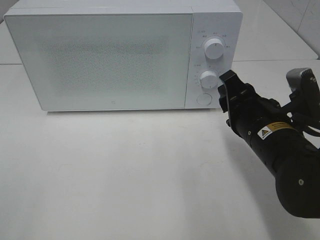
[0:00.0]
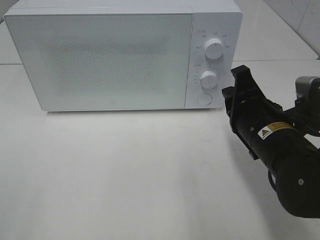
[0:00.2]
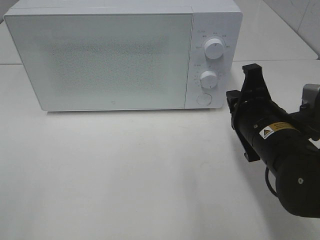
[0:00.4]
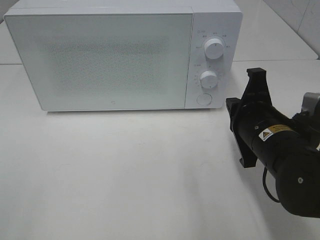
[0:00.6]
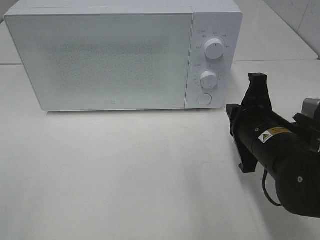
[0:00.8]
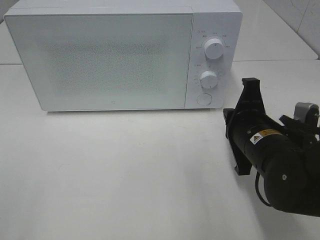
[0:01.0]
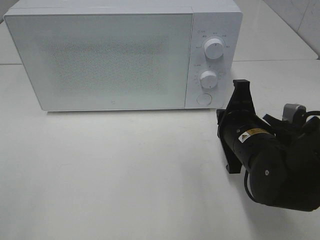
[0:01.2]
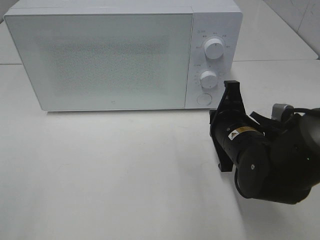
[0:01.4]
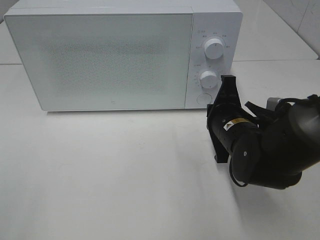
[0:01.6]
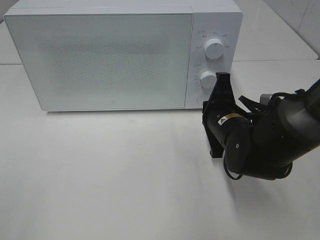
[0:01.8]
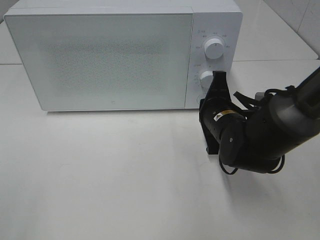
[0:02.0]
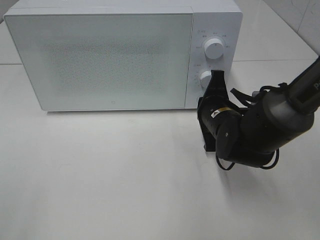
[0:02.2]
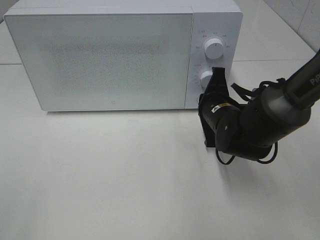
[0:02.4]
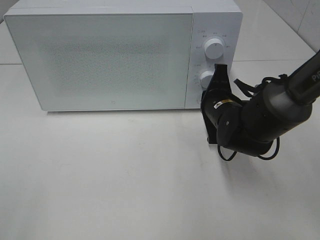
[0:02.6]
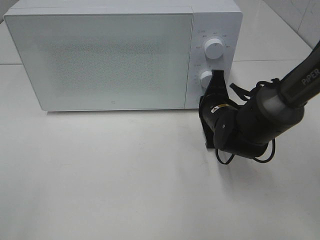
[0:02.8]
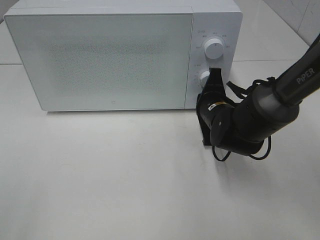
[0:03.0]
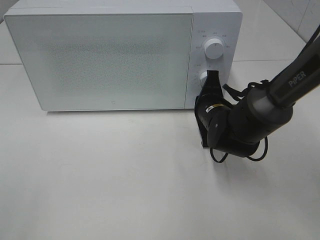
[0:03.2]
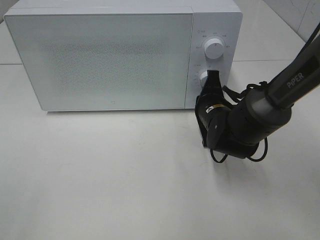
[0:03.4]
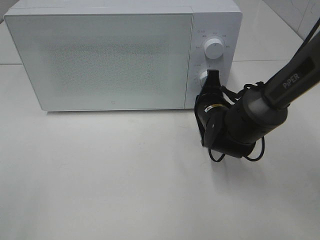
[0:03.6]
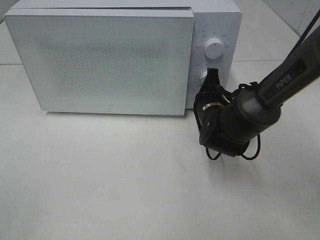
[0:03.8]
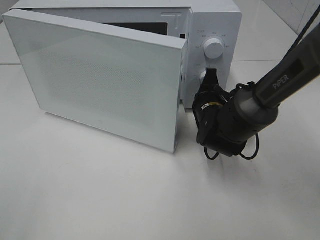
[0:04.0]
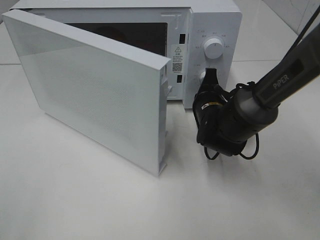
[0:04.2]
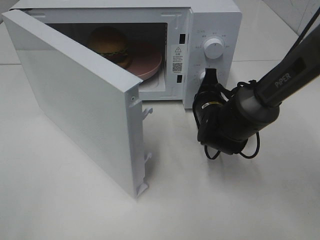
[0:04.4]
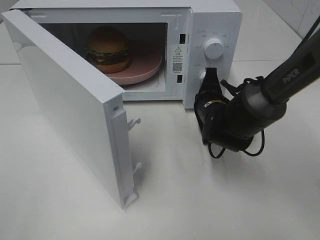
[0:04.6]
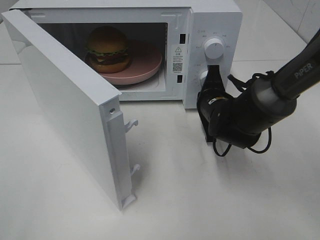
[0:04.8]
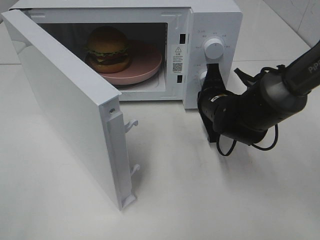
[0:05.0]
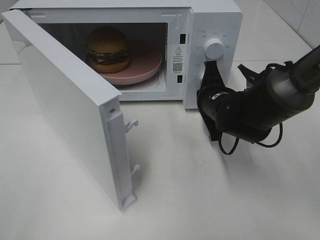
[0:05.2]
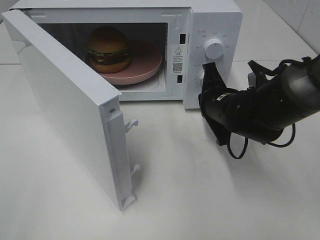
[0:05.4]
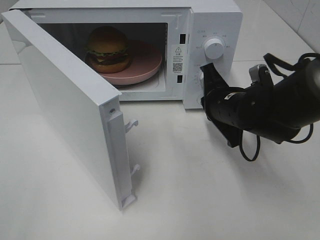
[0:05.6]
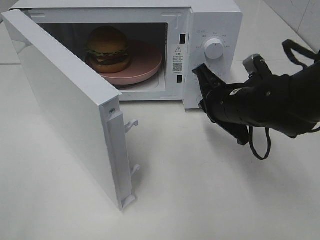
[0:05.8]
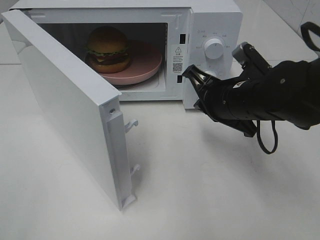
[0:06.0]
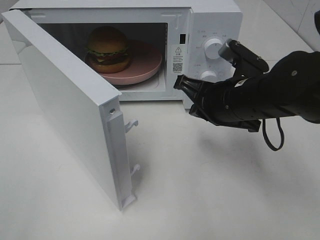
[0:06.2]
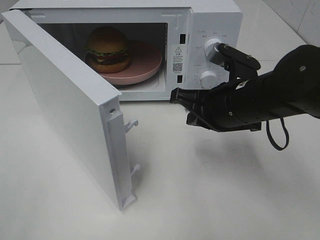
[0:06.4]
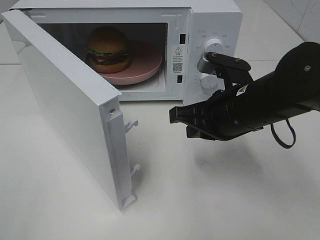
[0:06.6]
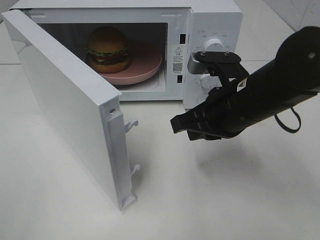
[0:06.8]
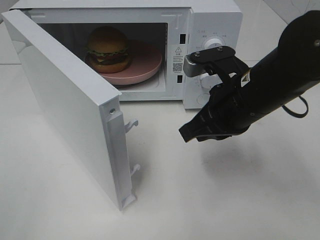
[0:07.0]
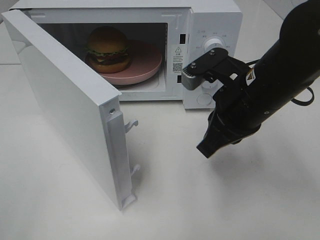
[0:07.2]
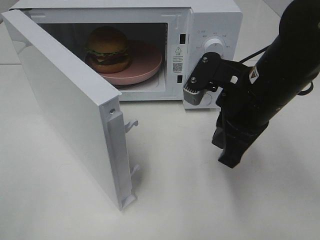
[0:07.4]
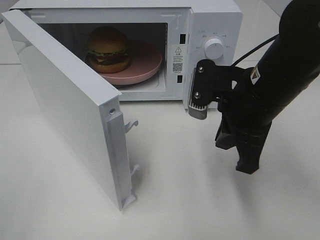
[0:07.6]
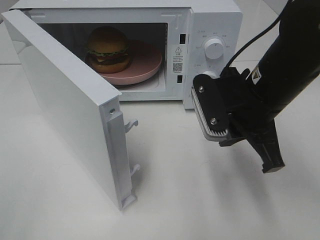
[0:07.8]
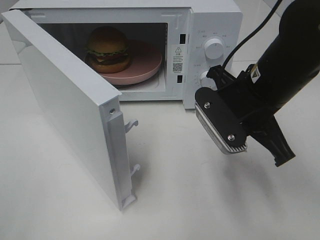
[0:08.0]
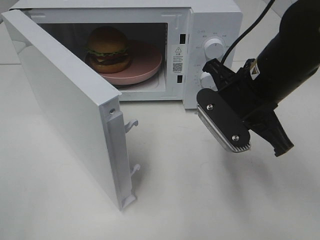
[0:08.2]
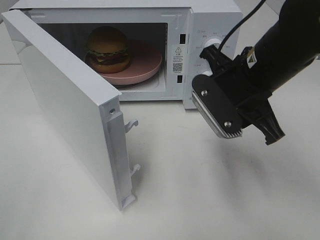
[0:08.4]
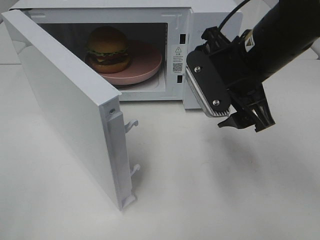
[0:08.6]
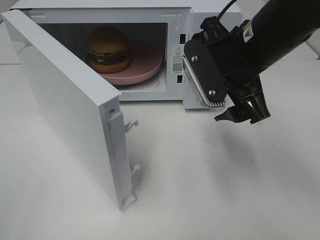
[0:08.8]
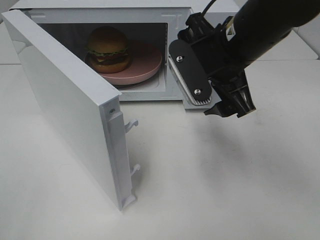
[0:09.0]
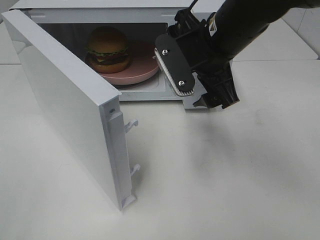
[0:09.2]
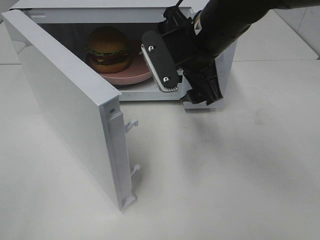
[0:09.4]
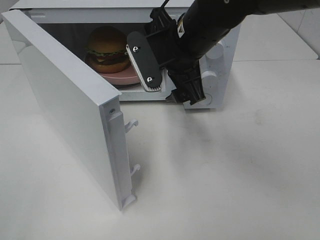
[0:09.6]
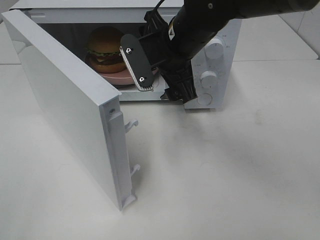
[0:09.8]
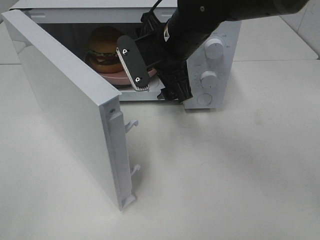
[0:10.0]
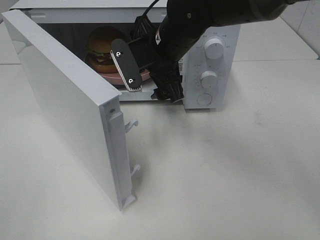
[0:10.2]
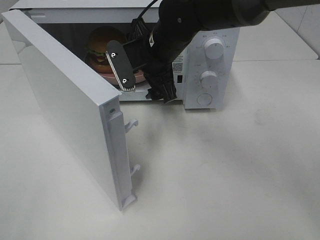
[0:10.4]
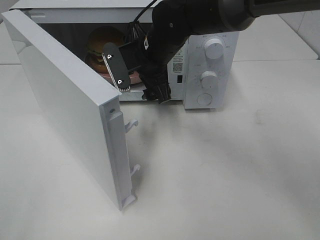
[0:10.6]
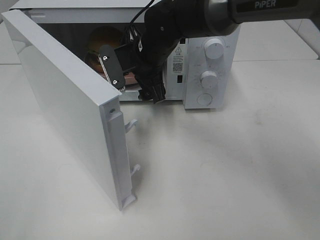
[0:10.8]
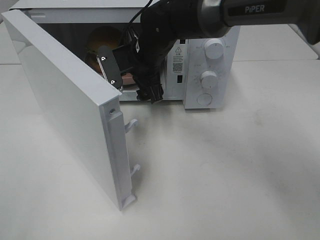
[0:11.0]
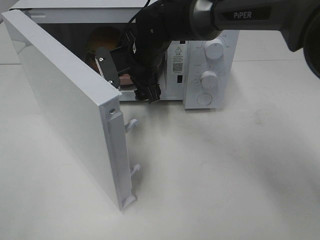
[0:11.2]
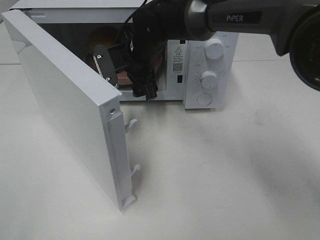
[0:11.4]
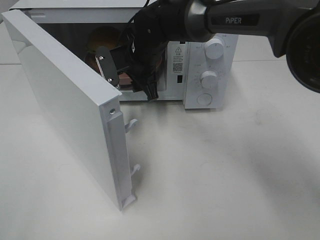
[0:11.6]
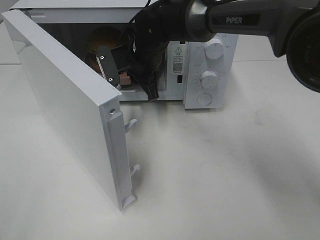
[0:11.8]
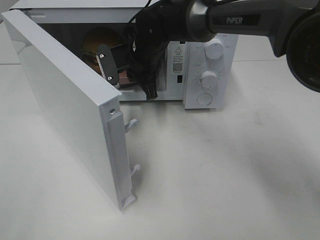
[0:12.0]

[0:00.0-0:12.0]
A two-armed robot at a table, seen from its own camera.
Task of the whole recording: Heat the burger.
Step, 0:00.0 to 0:05.4: Right hand: press the switch.
Step, 0:05.6 to 0:11.8: Right hand: grab the plate with the hamburger.
0:00.0 to 0:01.6: The right gripper ends up roughly 5 cm from where it was, and closes.
0:01.6 to 0:03.0: The right gripper heads forward, covering roughly 5 cm.
0:04.4 to 0:06.0: The right gripper shifts roughly 10 cm upward and backward.
0:06.0 to 0:07.6: The right gripper changes place by roughly 5 cm.
0:07.6 to 0:09.0: The right gripper moves approximately 5 cm, and opens up.
0:09.0 to 0:10.4: The right gripper heads to the left, forward and downward, covering roughly 15 cm.
0:10.4 to 0:12.0: The right gripper goes roughly 5 cm forward, and closes.

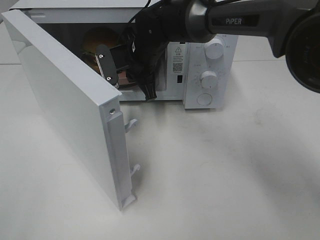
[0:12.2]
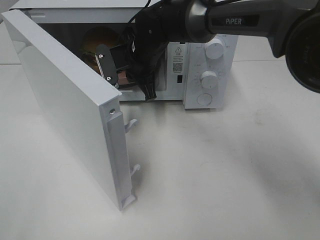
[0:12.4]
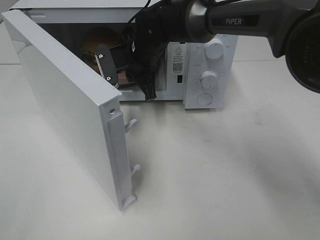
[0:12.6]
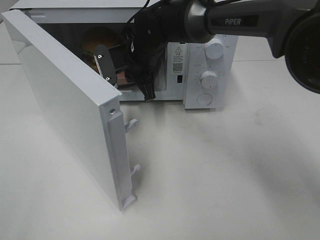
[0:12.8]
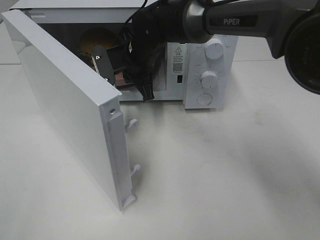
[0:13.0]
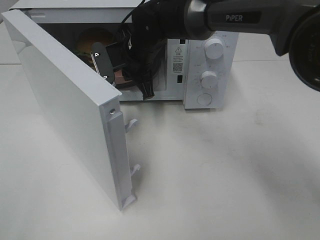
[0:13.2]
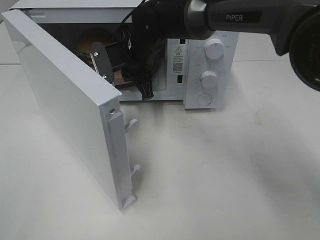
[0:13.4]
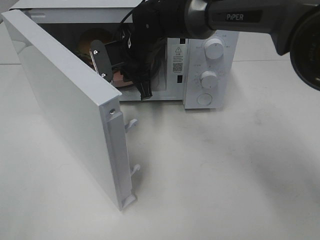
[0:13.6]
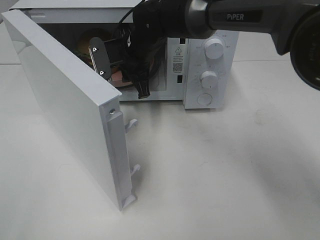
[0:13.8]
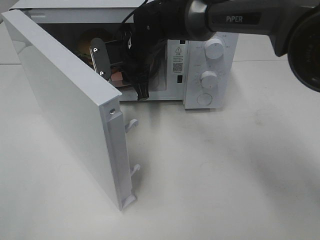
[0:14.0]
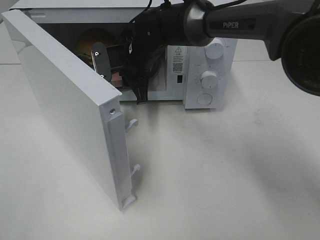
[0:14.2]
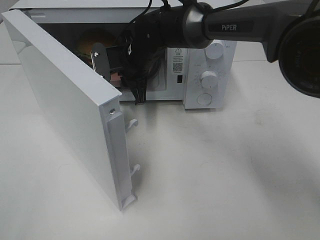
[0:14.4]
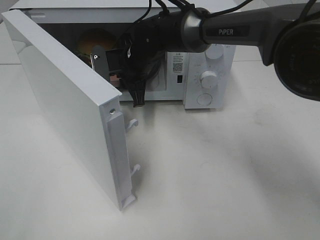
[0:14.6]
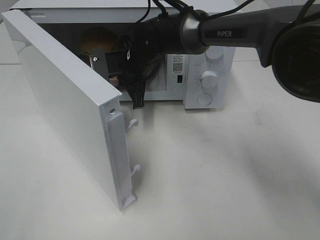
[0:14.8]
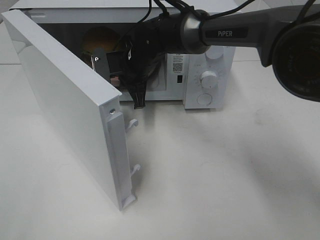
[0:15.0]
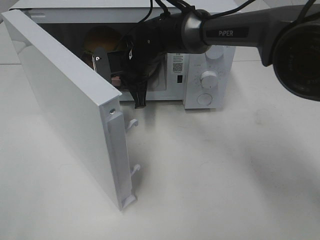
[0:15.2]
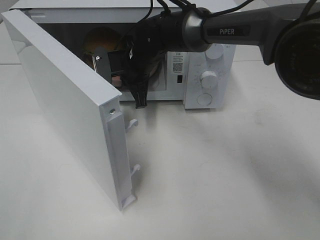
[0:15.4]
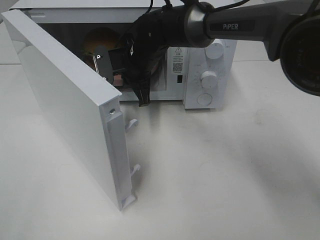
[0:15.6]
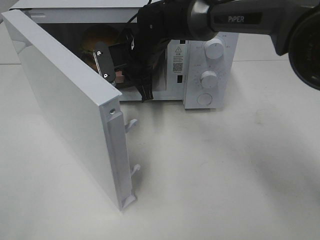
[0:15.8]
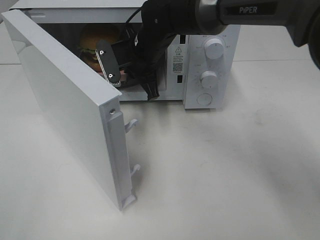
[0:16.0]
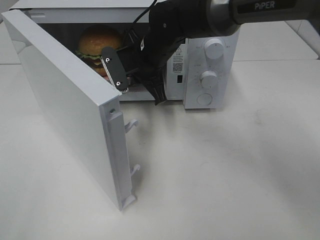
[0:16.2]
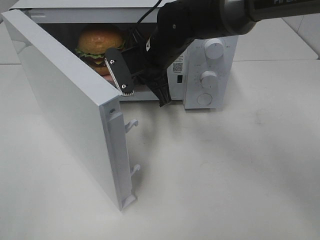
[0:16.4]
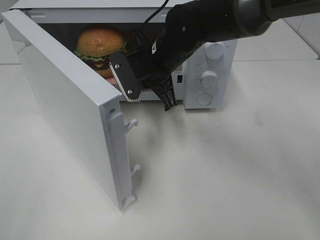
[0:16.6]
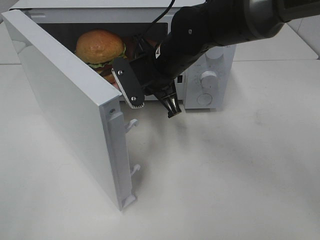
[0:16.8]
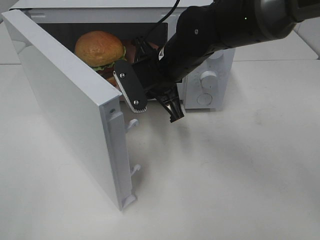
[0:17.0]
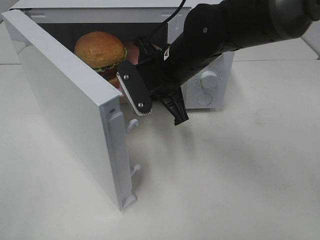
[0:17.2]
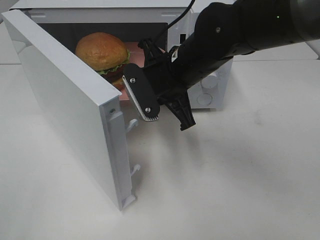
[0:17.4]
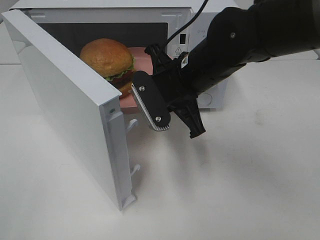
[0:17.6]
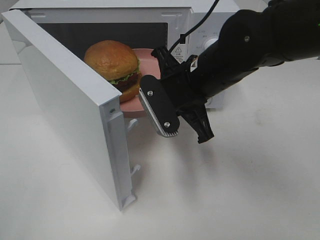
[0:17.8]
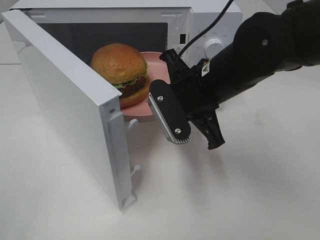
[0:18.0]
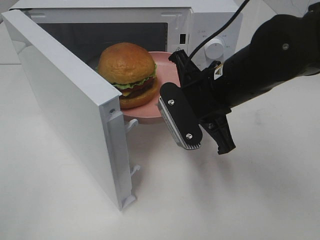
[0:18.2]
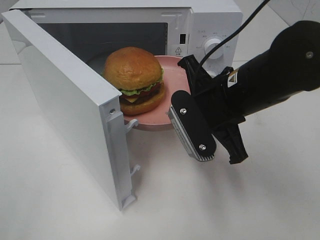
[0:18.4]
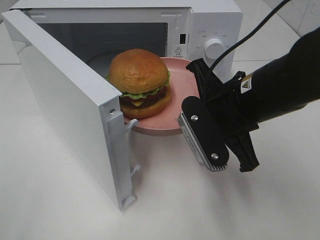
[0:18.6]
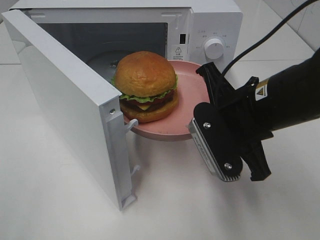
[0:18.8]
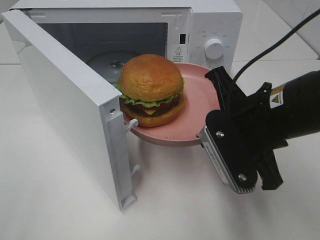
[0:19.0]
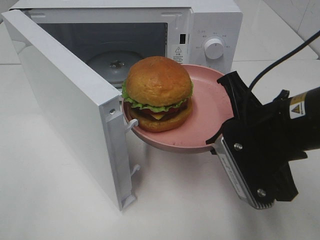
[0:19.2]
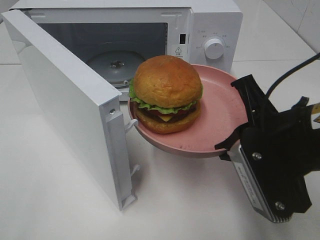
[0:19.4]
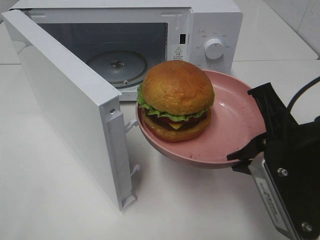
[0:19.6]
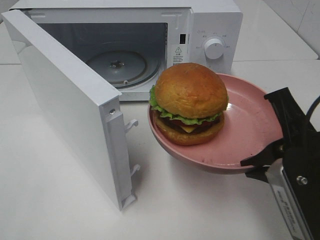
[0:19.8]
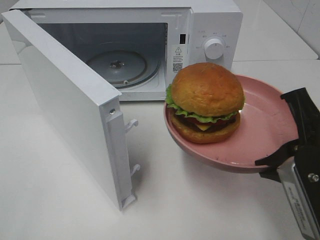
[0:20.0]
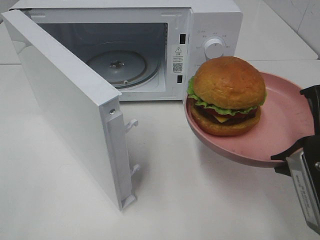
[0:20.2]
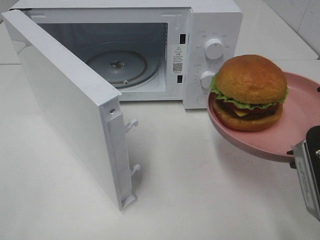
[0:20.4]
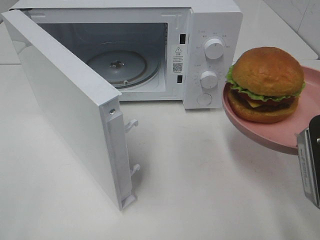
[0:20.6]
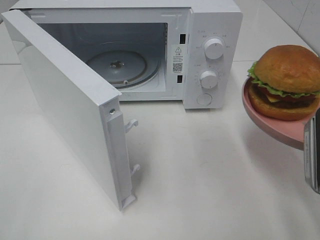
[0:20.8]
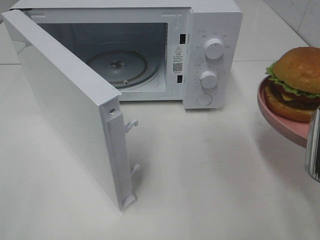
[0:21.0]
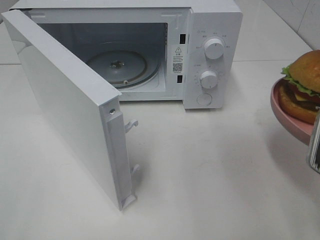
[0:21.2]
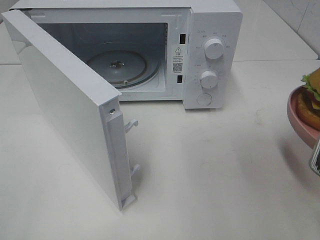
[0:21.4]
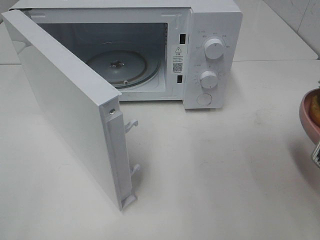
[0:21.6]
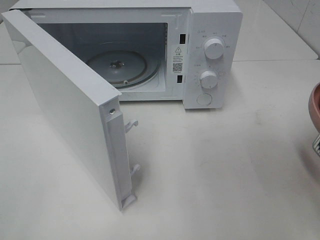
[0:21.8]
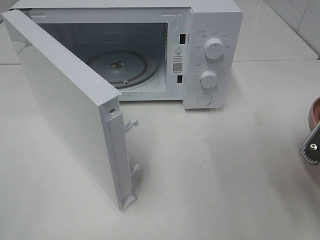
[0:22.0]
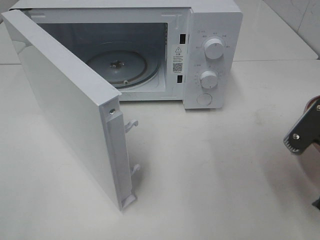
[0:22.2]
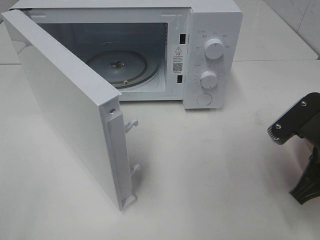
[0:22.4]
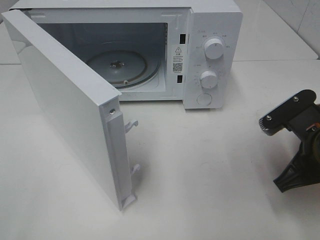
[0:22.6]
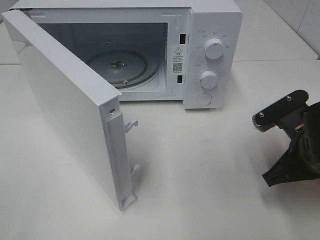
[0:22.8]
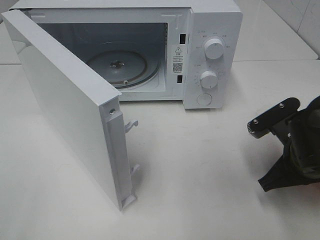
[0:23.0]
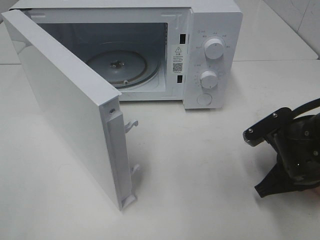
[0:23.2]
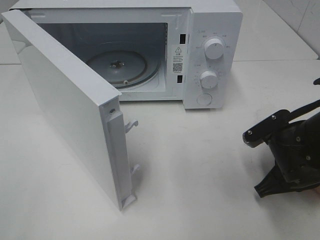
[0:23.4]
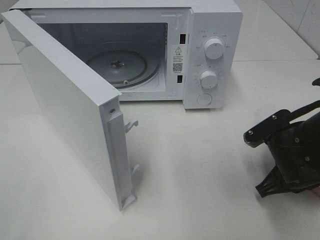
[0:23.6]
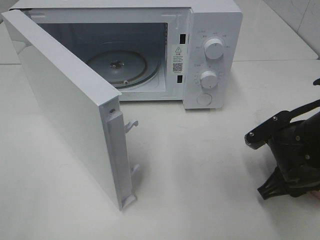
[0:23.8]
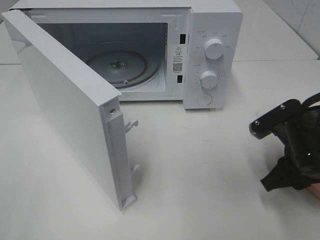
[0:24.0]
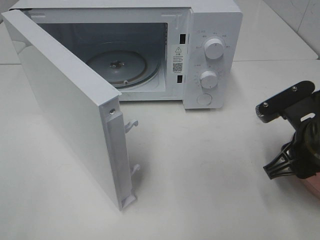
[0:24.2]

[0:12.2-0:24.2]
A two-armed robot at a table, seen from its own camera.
Task of the whole recording: Heat the burger.
0:12.2 to 0:13.8: Both grippers stay about where they are.
0:13.8 to 0:15.2: The grippers stay close to where they were, moving slightly.
0:15.2 to 0:16.6: The right gripper is displaced backward by roughly 5 cm.
0:16.6 to 0:18.2: The right gripper heads backward and to the right, covering some 15 cm.
0:18.2 to 0:19.8: The right gripper moves backward and to the right, roughly 15 cm.
0:19.8 to 0:21.2: The right gripper moves to the right, approximately 5 cm.
0:21.2 to 0:22.6: The right gripper travels downward and forward by some 10 cm.
0:22.6 to 0:24.2: The right gripper opens up.
